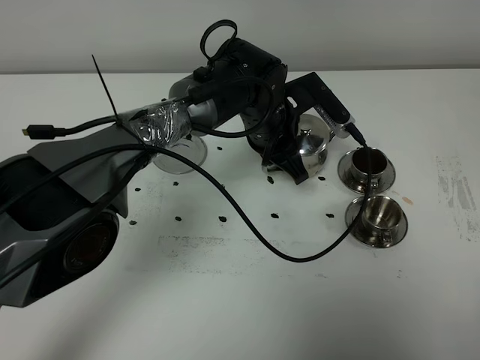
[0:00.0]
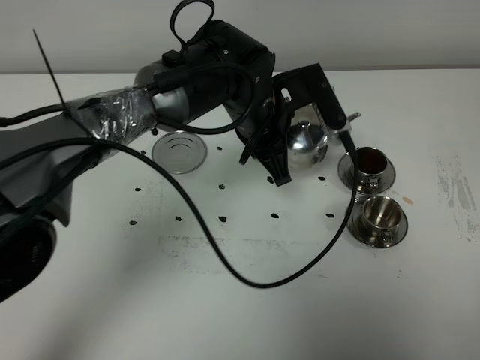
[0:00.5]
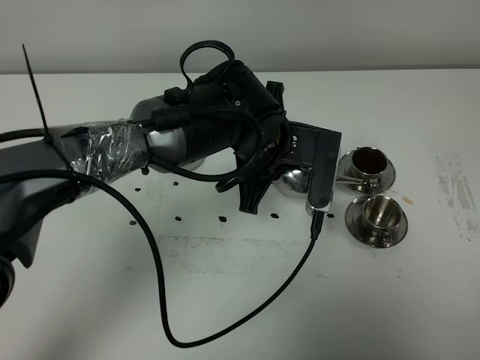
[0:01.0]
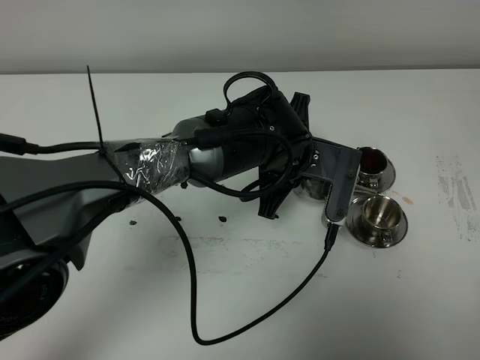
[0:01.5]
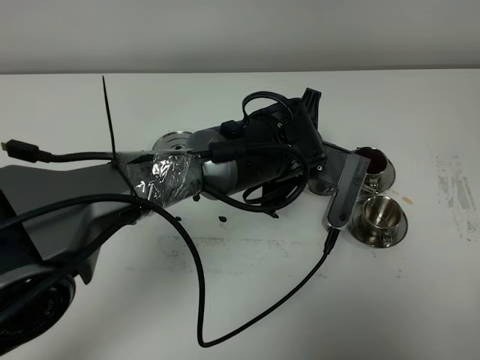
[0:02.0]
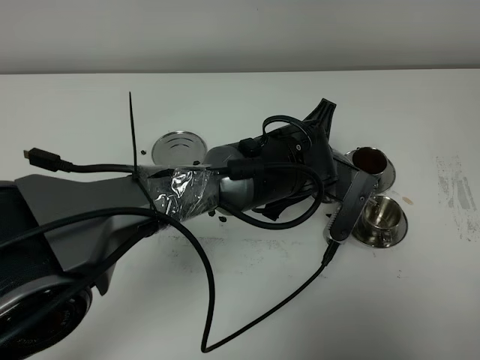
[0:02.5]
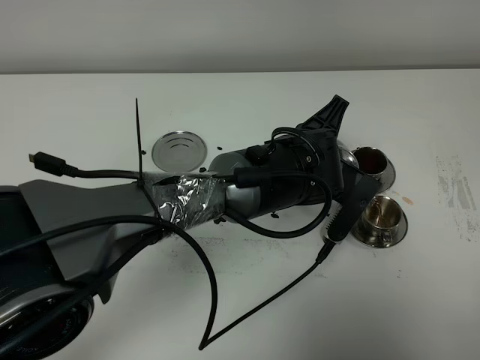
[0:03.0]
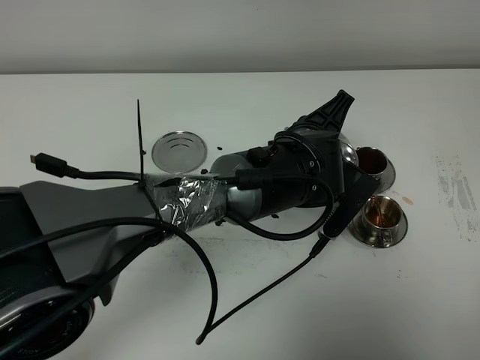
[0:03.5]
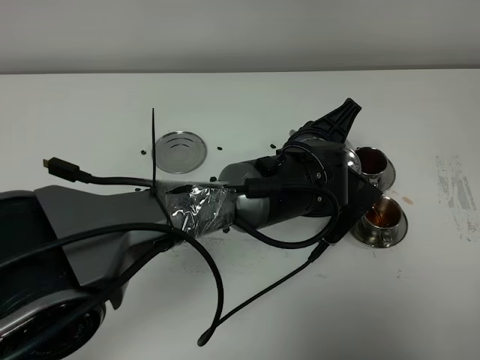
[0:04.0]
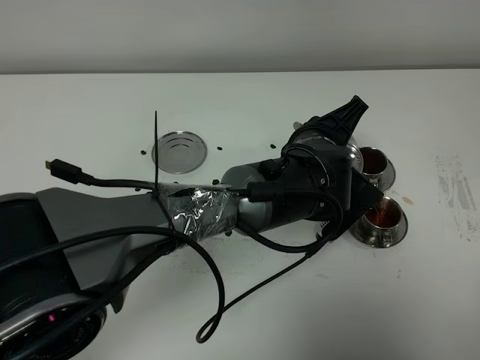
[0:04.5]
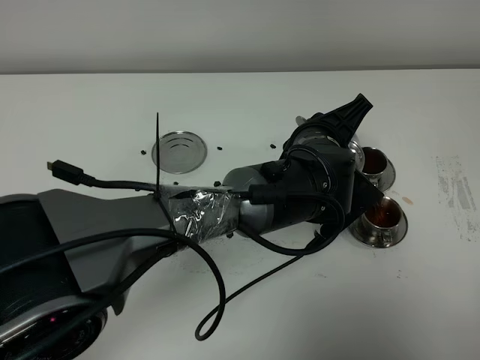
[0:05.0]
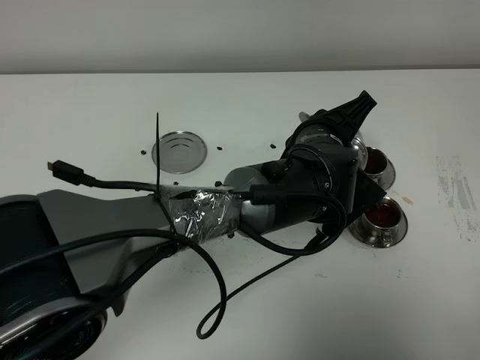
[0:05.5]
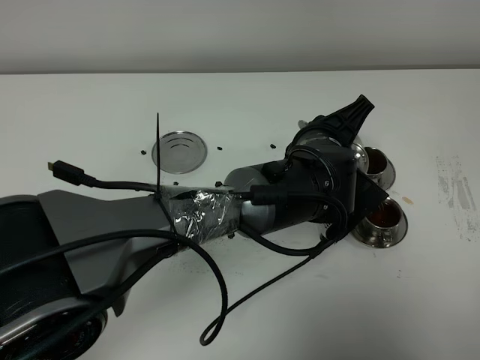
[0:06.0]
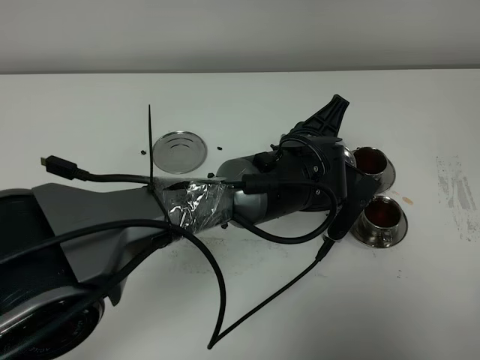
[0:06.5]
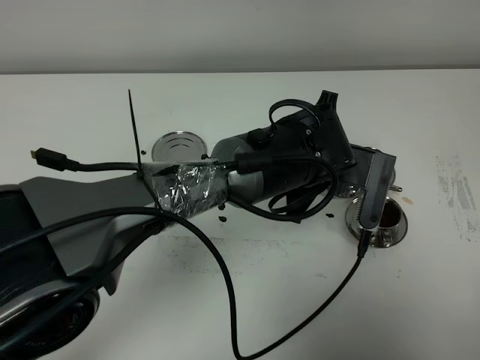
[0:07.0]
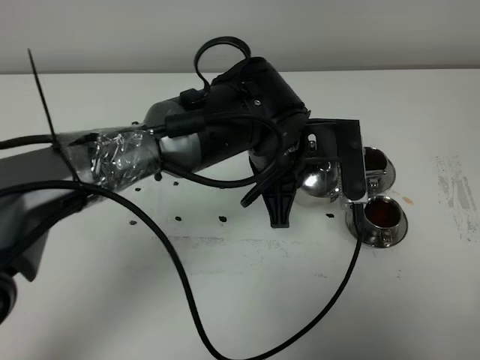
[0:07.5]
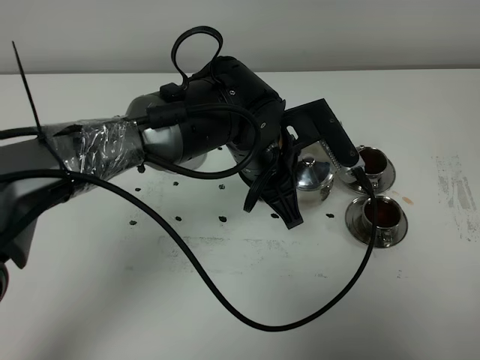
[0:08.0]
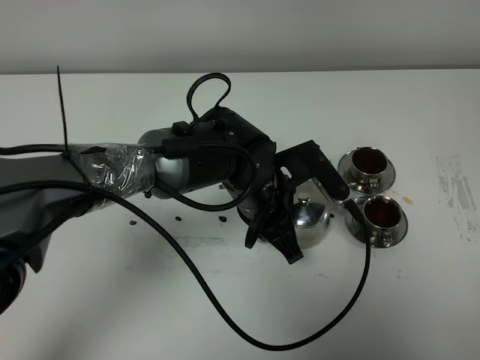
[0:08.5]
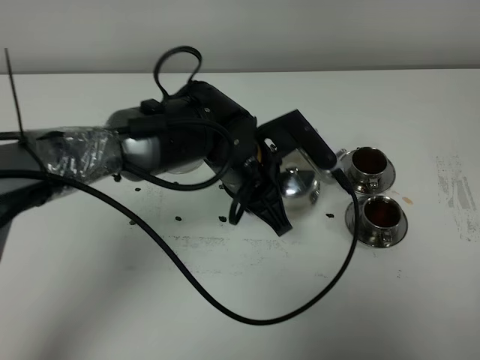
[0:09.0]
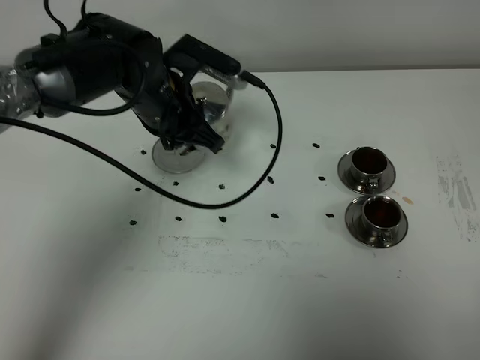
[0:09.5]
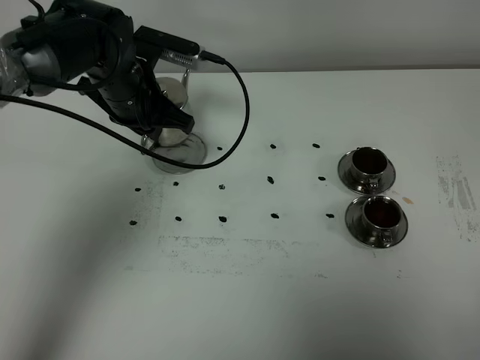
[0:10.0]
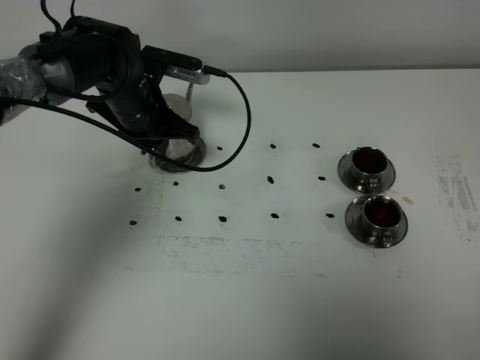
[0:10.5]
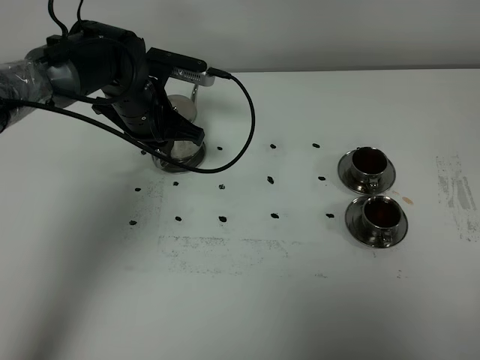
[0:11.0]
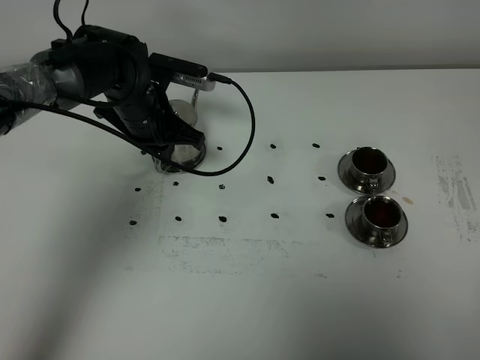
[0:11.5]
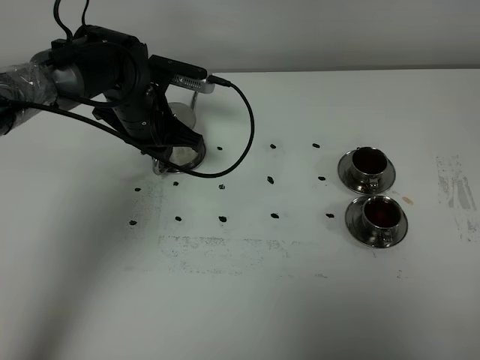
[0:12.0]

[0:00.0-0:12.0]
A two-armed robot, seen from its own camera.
Task of the whole recording: grasp the stainless steel teapot and pour the tea into the two stainless steel teacups one by one, put the stainless steel teapot back in its original place.
Step, 0:00.0 to 0:06.5: Pour tea into the teacup with the left gripper.
0:00.0 to 0:02.0: The left gripper heads backward, covering approximately 10 cm.
0:04.0 to 0:06.0: There are only small adjustments of the grippers.
0:06.0 to 0:08.0: The left gripper travels to the left by about 5 cm.
0:08.0 to 0:10.0: The left gripper travels to the left and forward by roughly 20 cm.
0:10.0 to 0:12.0: The grippers stay close to where they were, moving slightly.

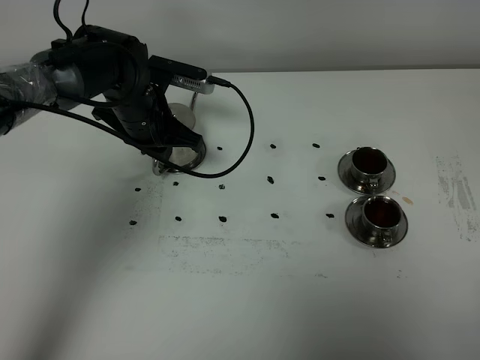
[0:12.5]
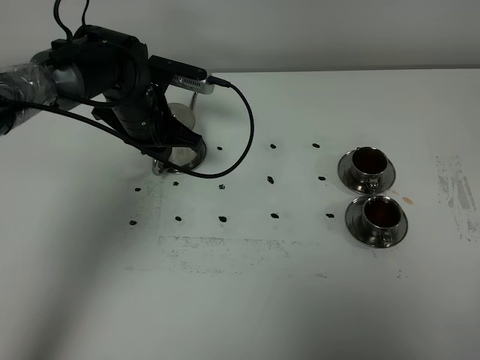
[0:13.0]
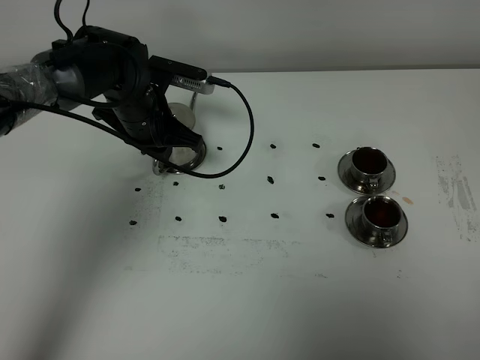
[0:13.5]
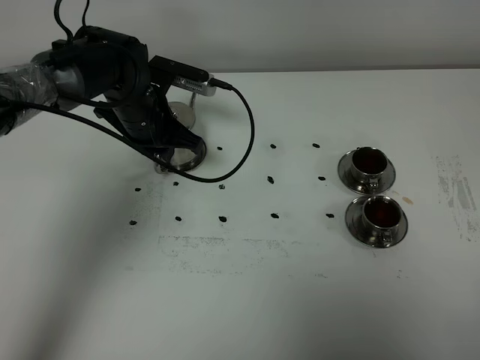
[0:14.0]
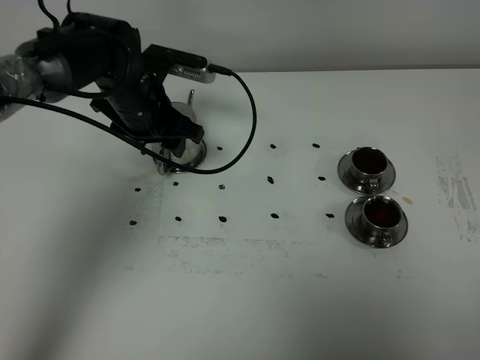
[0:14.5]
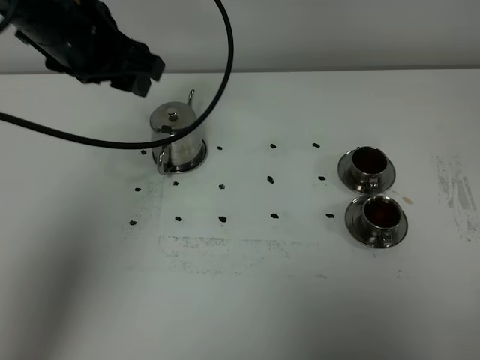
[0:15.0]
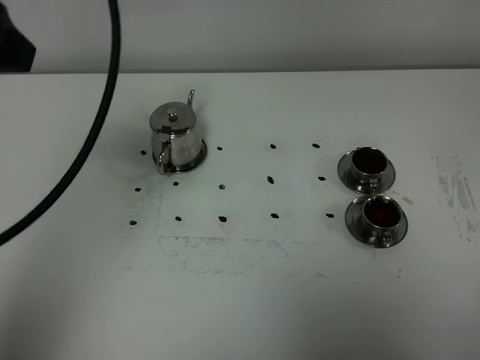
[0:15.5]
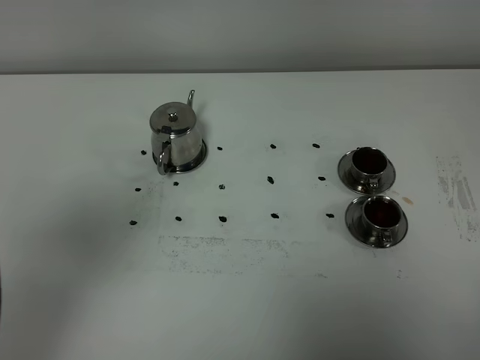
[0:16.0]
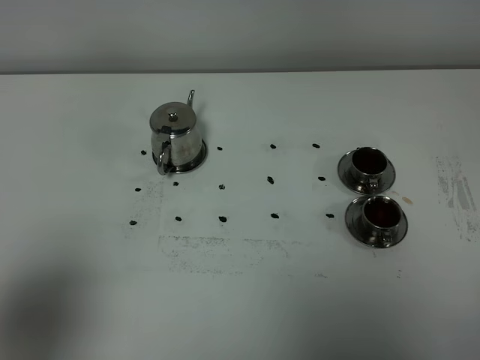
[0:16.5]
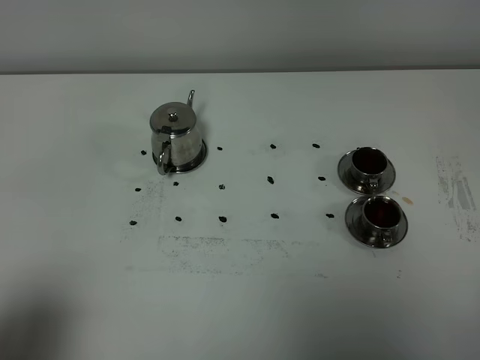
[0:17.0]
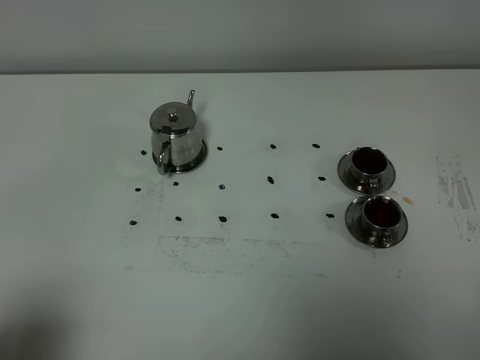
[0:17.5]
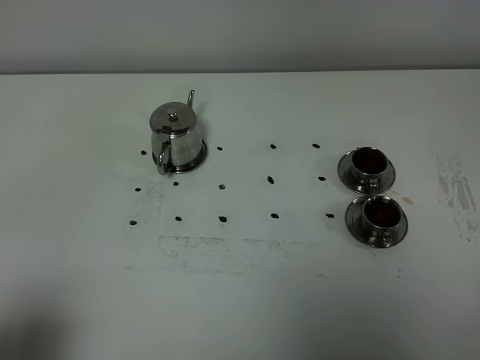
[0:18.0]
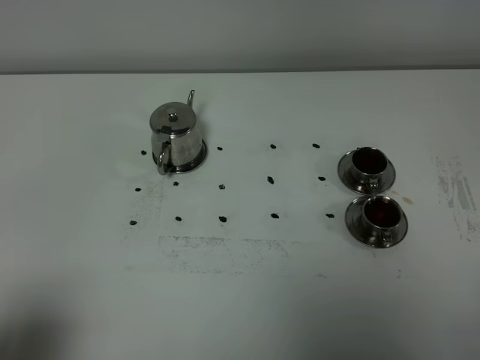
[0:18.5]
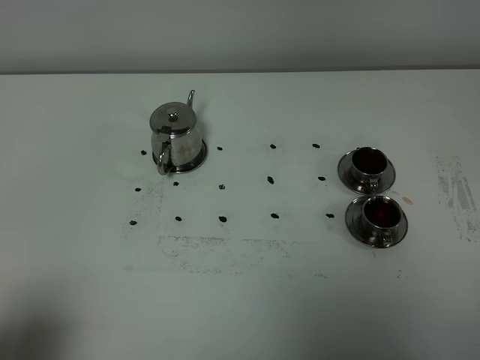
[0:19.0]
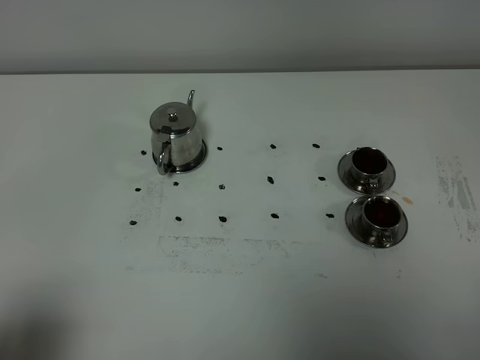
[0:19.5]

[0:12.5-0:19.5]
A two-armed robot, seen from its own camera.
Task of the whole recording: grasp the stainless steel teapot and pour the tea into the two stainless steel teacups one by one, put the stainless steel teapot back in its original place.
0:12.5 to 0:14.5: The left gripper opens.
0:14.5 to 0:16.0: The left gripper is displaced backward and upward by approximately 40 cm.
0:16.0 to 0:17.5: The left gripper heads downward and backward, covering roughly 20 cm.
0:17.5 to 0:19.5: Neither gripper changes place.

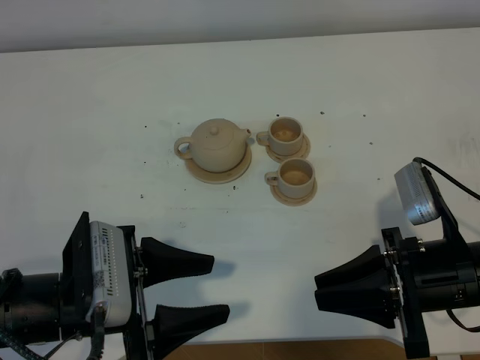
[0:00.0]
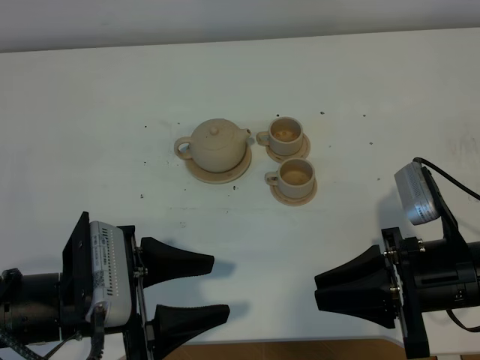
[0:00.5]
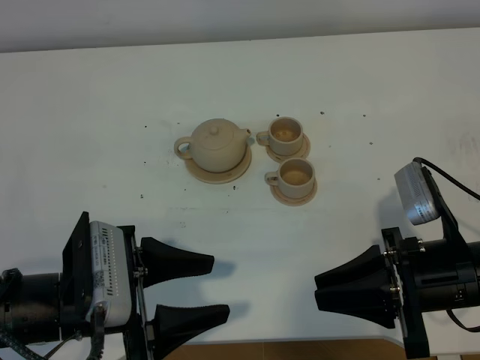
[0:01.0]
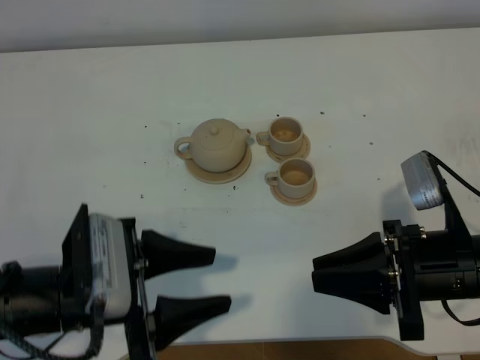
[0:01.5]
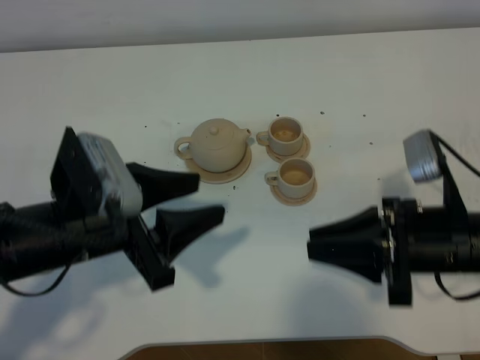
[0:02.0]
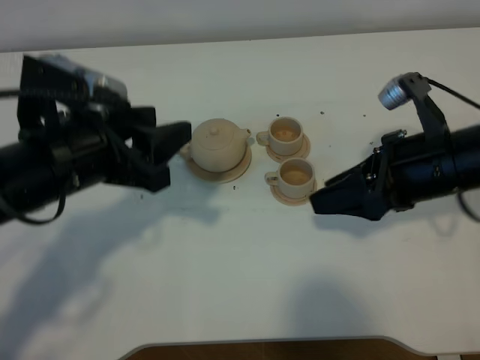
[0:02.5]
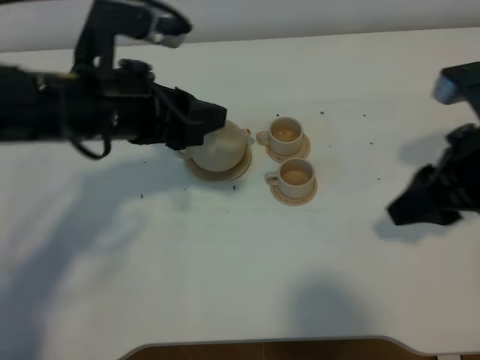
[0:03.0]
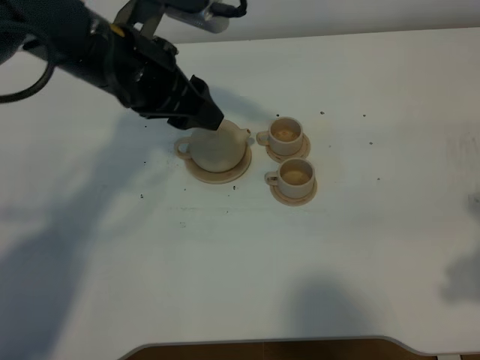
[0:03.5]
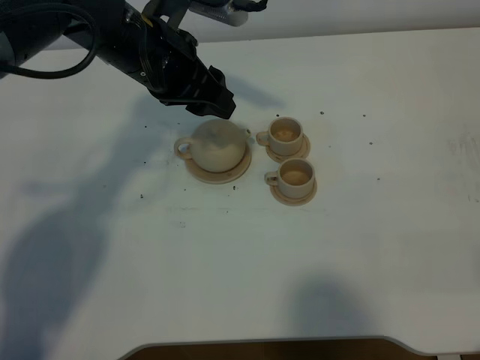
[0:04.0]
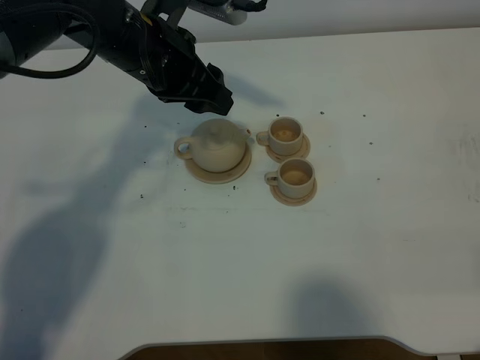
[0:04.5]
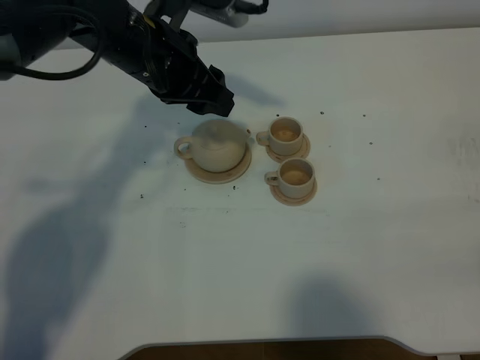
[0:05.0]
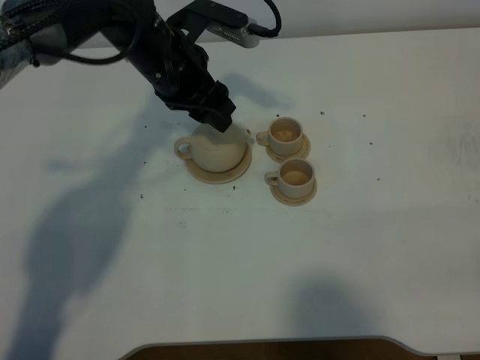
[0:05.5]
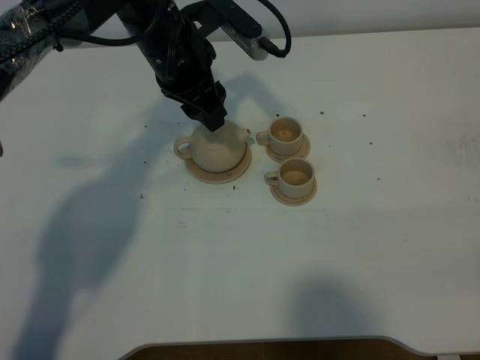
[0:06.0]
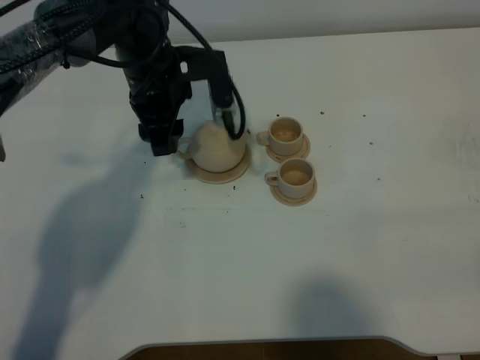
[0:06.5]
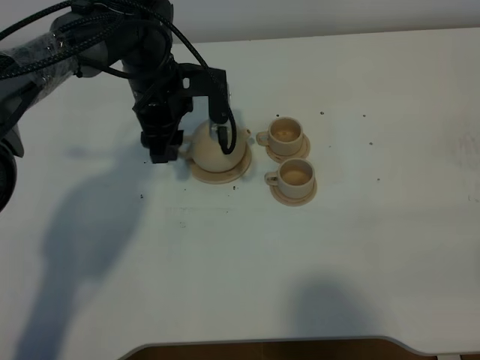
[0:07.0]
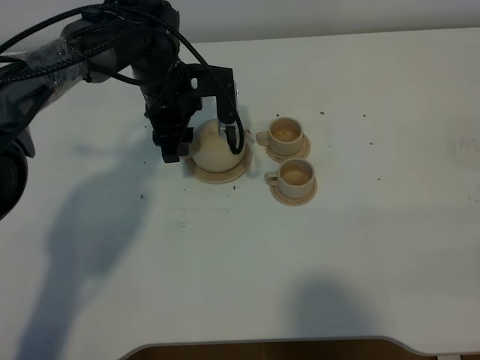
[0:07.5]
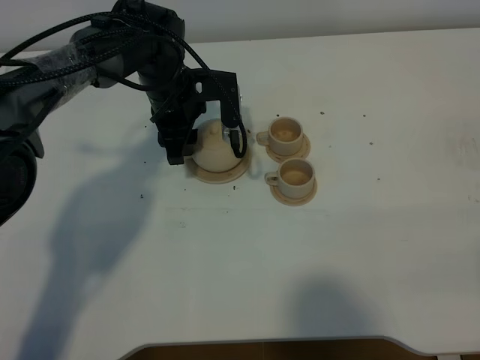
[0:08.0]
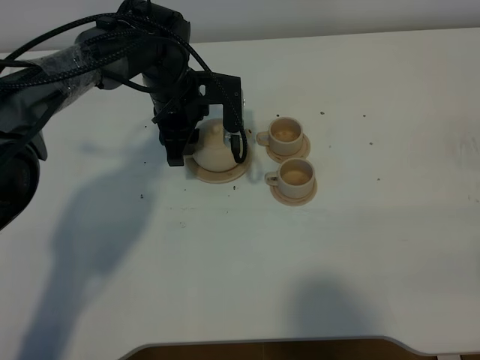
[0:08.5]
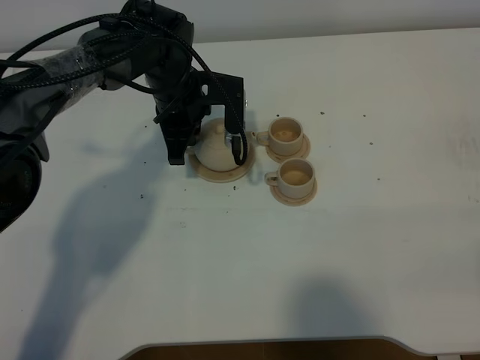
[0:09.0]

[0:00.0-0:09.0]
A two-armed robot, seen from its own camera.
Task of the whole recording: grasp the brown teapot and pour the tea into the two brown teacups one by one, put the brown teapot back in its original place.
0:00.0 to 0:02.0: The left gripper moves forward, about 5 cm.
0:02.0 to 0:04.5: The right gripper goes some 20 cm backward, to the right and upward, and opens up; the left gripper travels forward by about 20 cm.
0:04.5 to 0:07.0: The left gripper heads downward, covering about 10 cm.
0:07.0 to 0:09.0: The left gripper closes.
